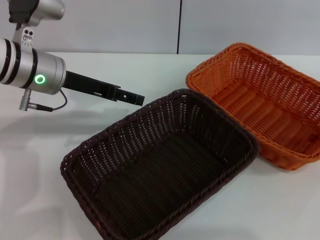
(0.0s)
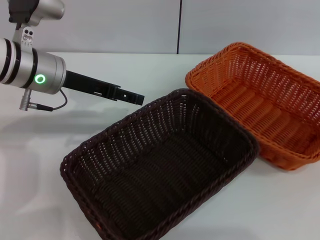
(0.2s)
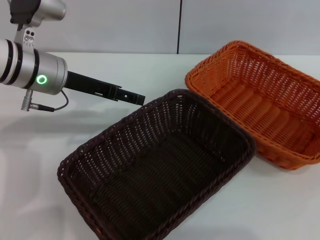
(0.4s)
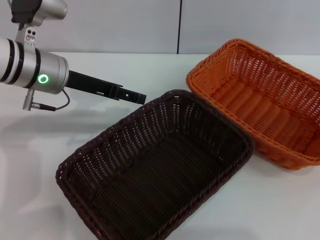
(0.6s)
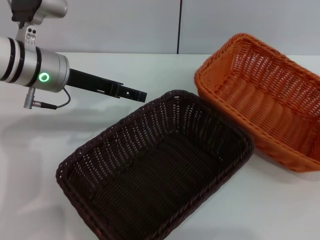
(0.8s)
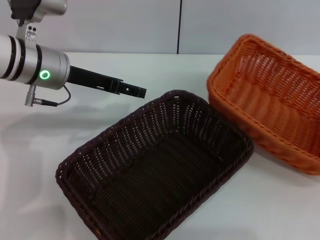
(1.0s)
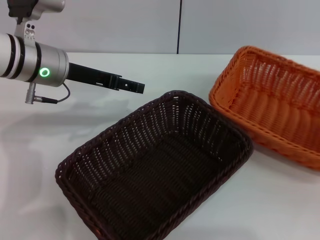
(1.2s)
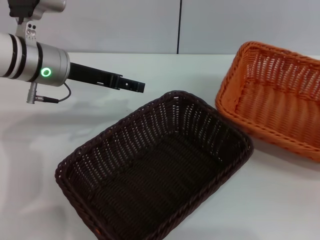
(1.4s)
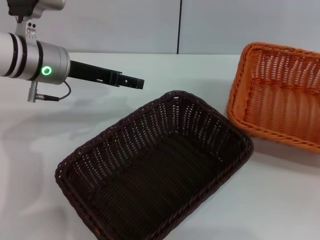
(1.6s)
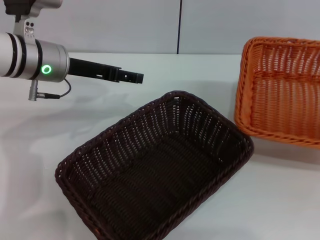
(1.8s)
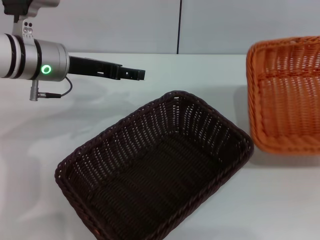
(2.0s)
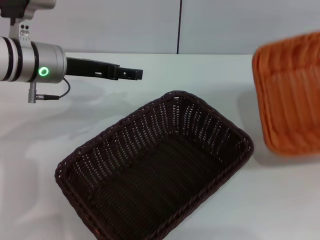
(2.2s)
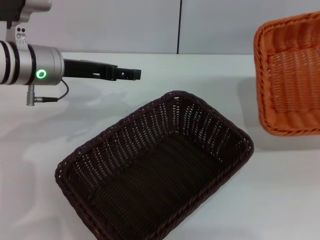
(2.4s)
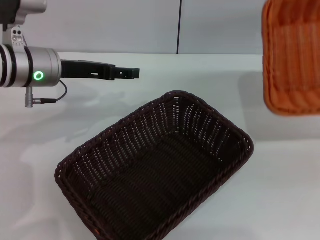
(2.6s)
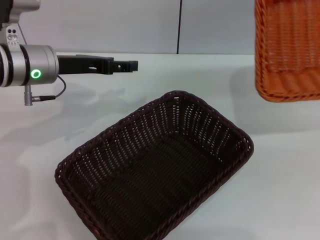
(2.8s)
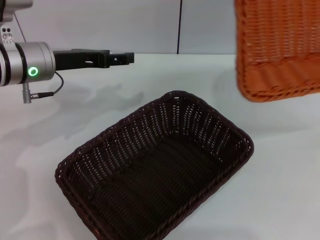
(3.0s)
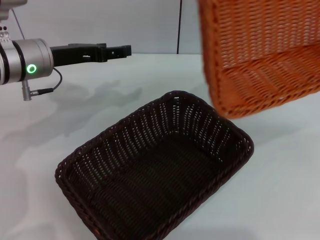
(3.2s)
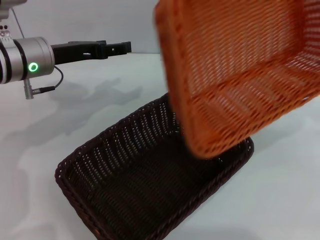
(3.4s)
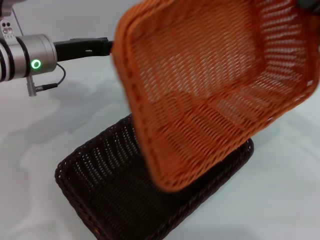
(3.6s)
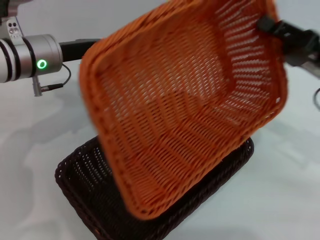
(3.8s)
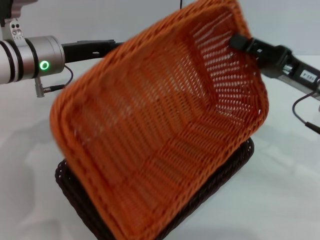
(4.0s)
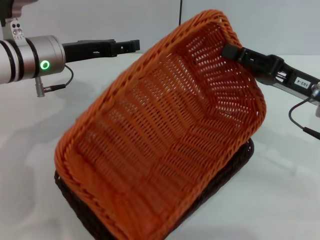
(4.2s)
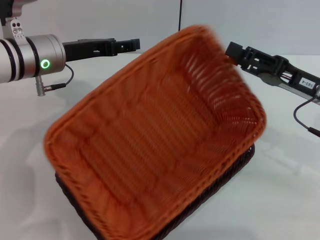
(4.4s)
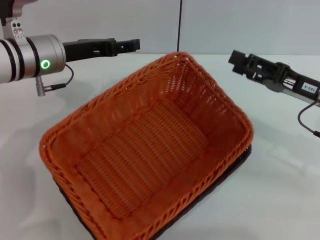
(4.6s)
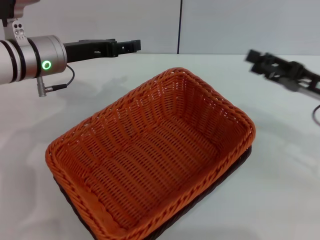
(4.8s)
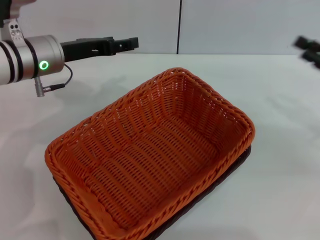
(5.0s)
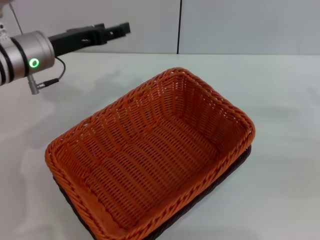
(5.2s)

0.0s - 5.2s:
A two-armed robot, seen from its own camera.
Step, 1.8s - 4.6s: Place the light basket on the dark basket with the right gripper.
0.0s - 1.8s: The right gripper moves to the right, about 5 cm, and closes up.
1.8s - 3.4s: The right gripper goes about 10 cm to the left.
3.4s - 5.2s: The right gripper moves downward, about 5 cm, travels to the left and back again, approximately 10 cm each way, and opens up.
